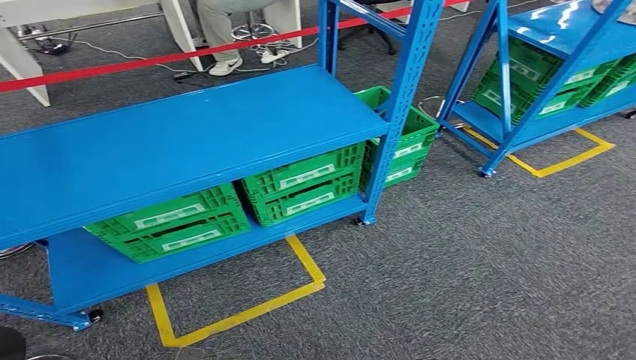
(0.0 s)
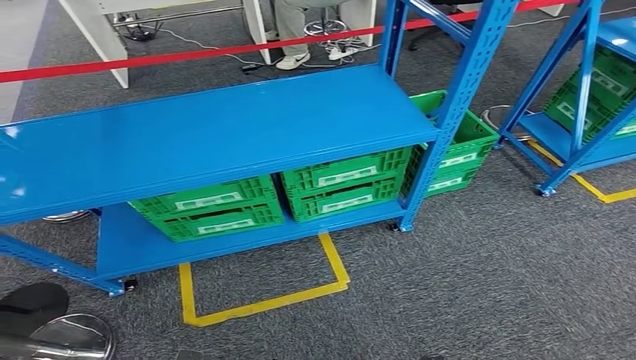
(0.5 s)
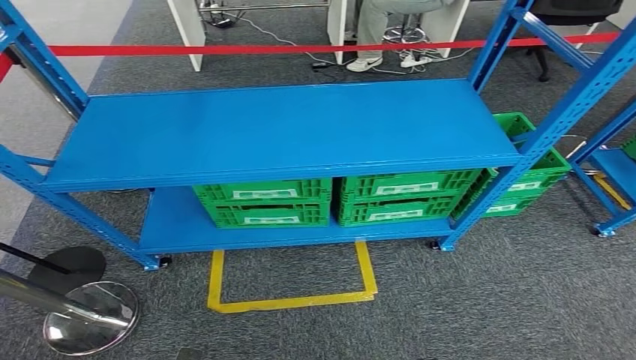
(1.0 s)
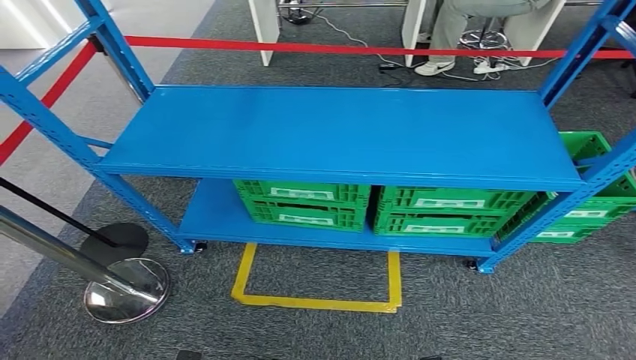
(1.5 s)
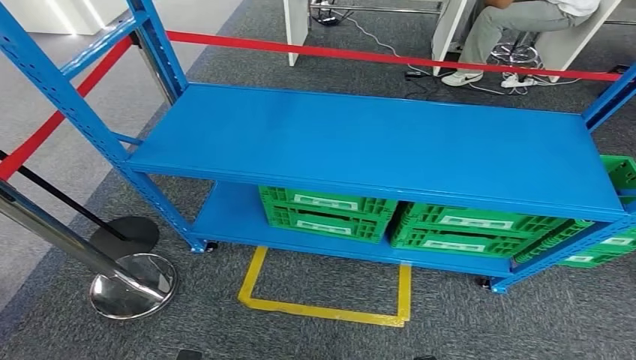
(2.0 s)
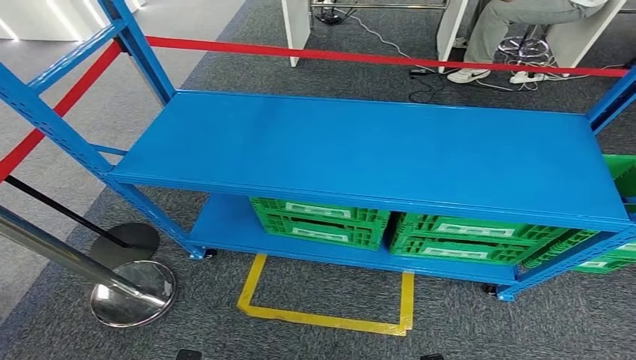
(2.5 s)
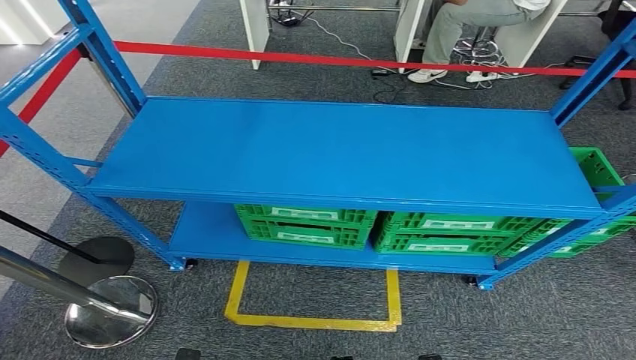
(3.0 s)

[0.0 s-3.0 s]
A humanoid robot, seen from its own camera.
Step, 0.0 to 3.0 s: Return to the initial position at the workbench.

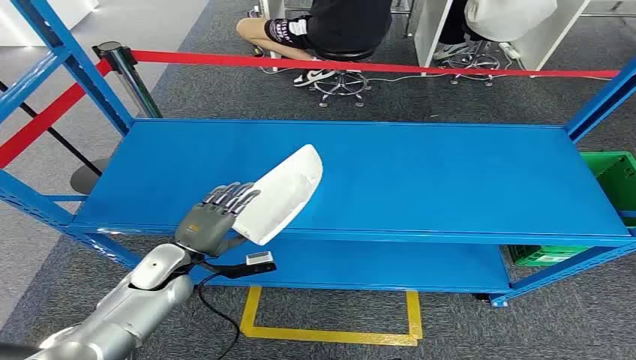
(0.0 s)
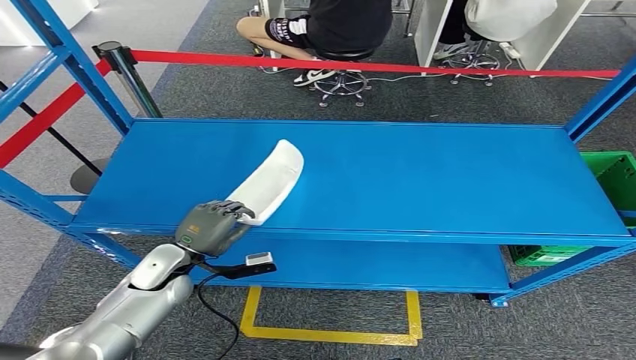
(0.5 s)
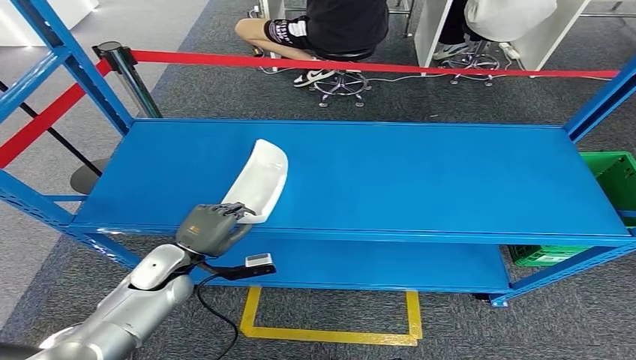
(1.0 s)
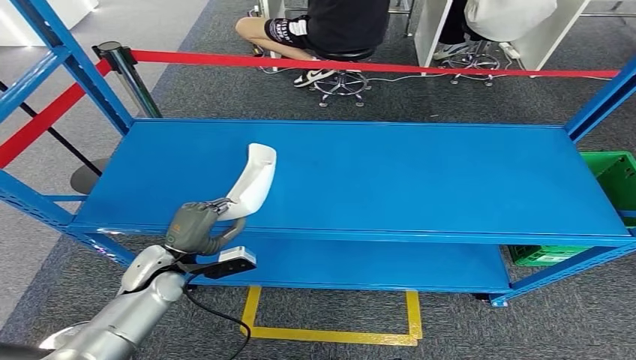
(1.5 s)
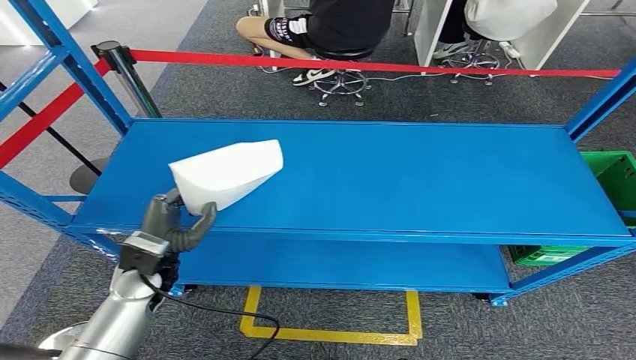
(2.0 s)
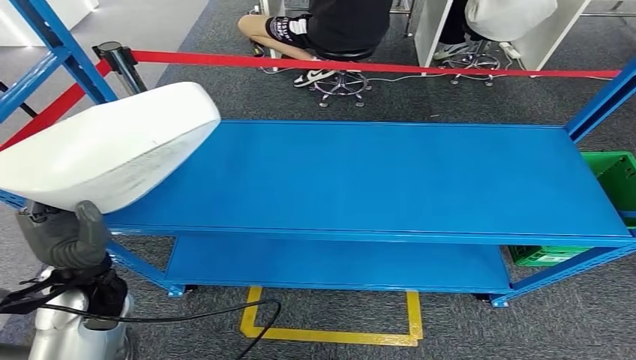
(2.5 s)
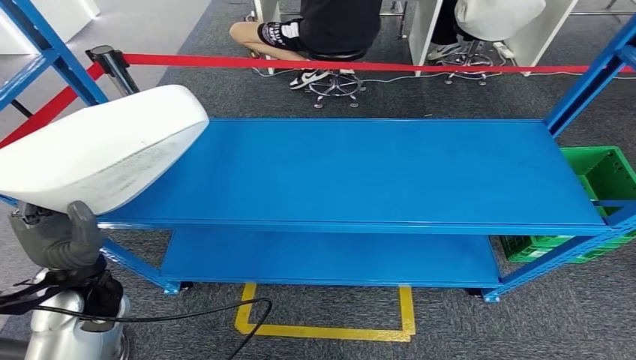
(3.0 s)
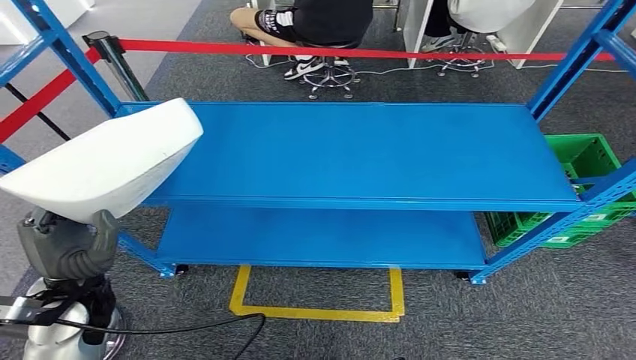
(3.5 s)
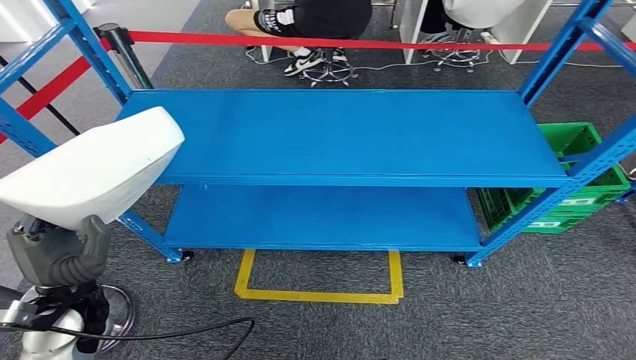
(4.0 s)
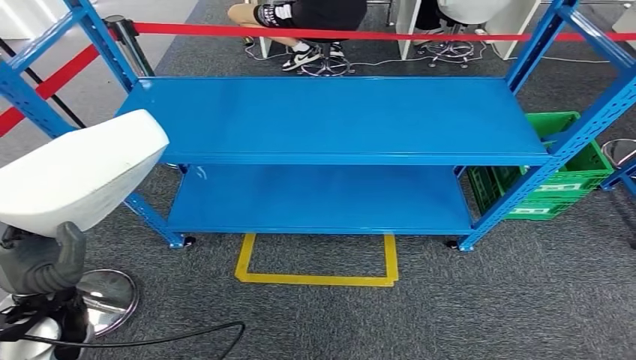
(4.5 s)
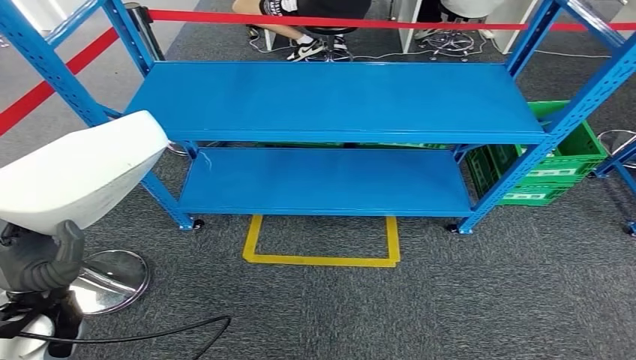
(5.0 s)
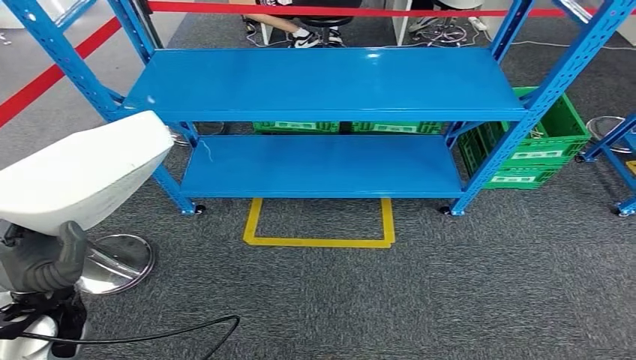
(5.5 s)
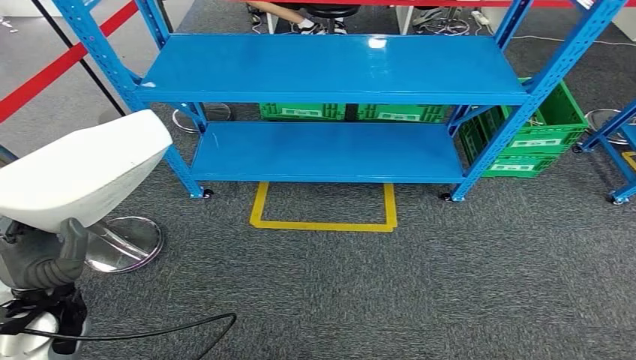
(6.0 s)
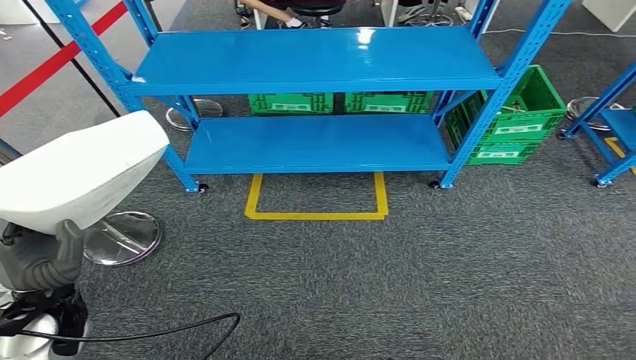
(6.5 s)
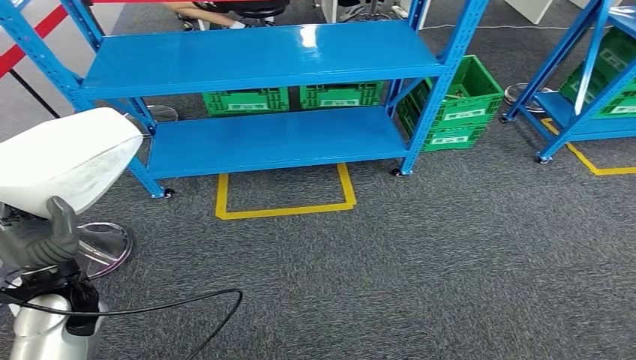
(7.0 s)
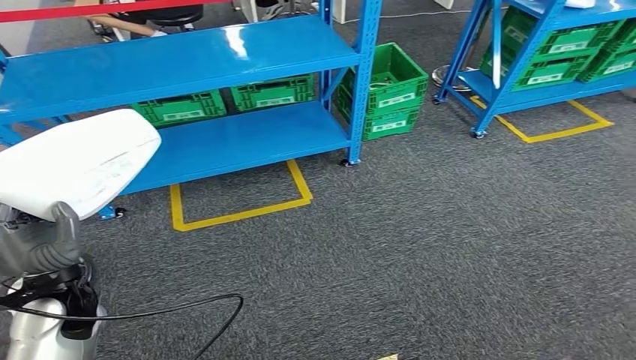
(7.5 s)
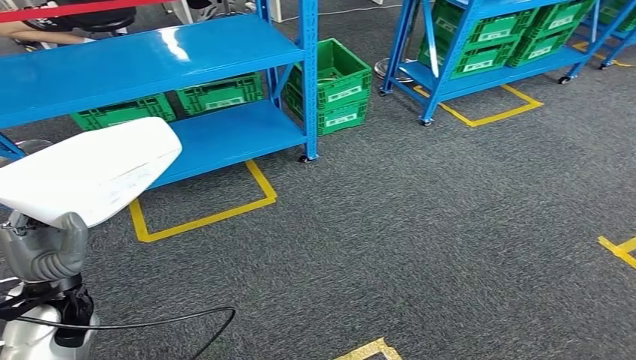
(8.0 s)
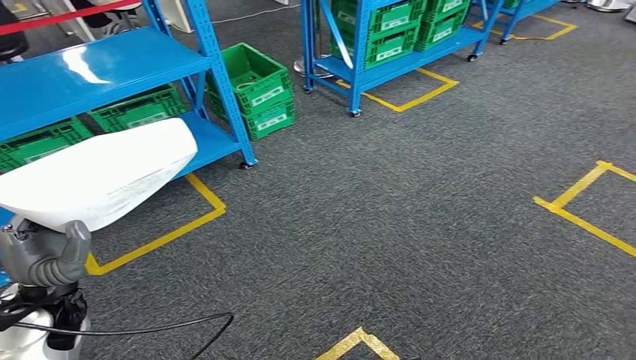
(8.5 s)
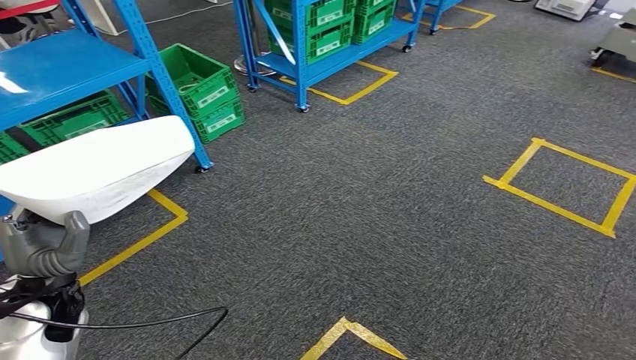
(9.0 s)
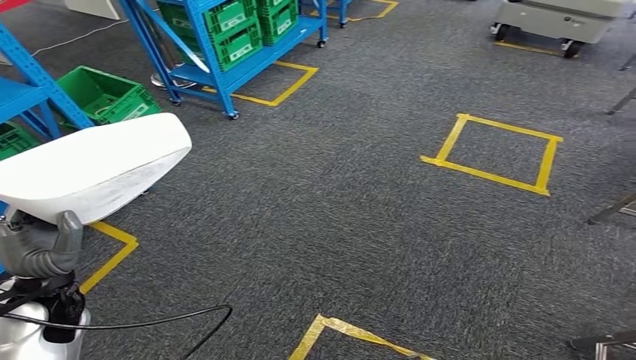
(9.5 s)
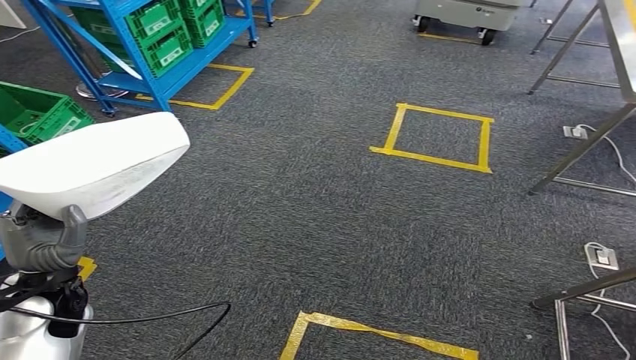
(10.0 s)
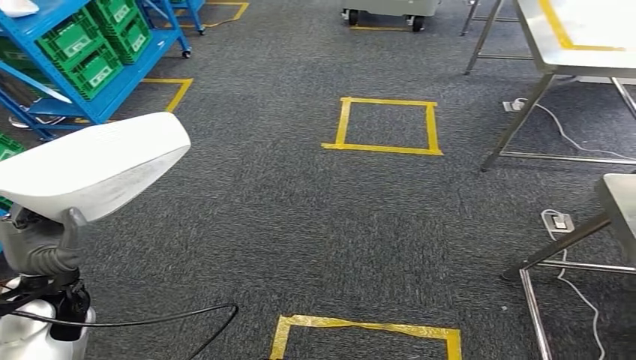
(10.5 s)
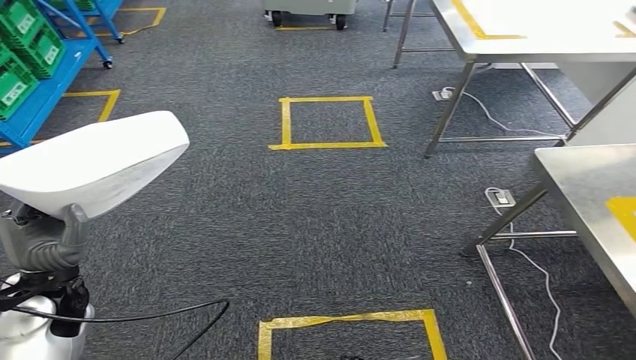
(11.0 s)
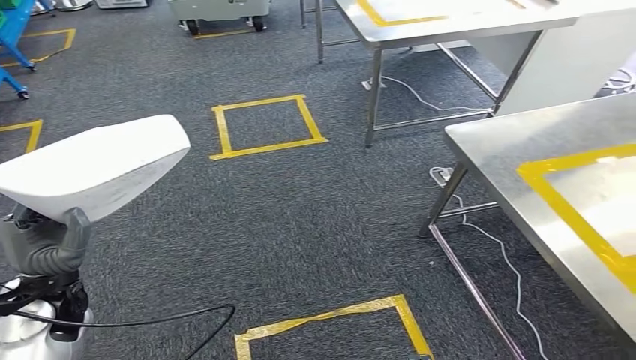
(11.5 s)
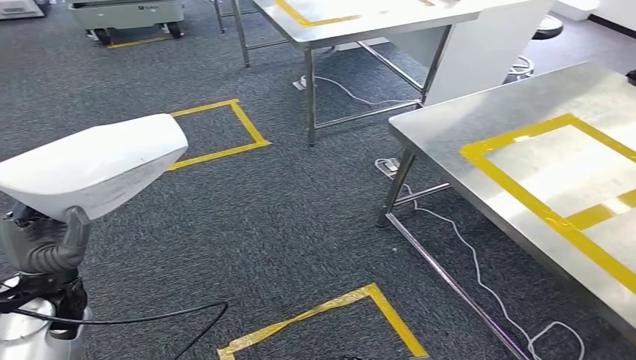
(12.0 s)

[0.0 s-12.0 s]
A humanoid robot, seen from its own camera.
Step, 0.0 to 3.0 s: Pick up the small component from the shelf.

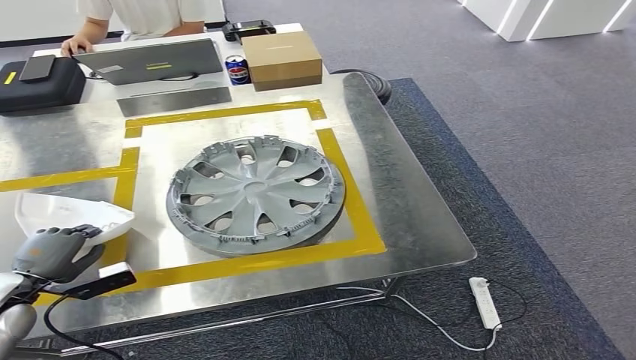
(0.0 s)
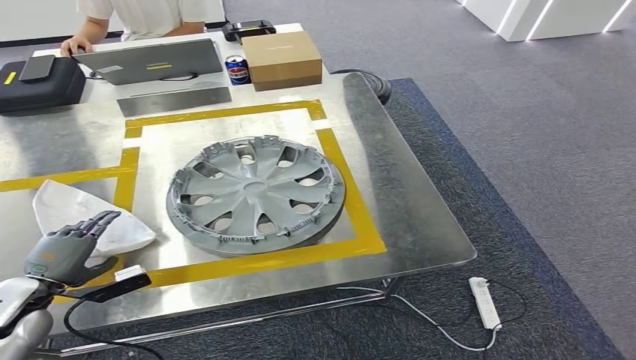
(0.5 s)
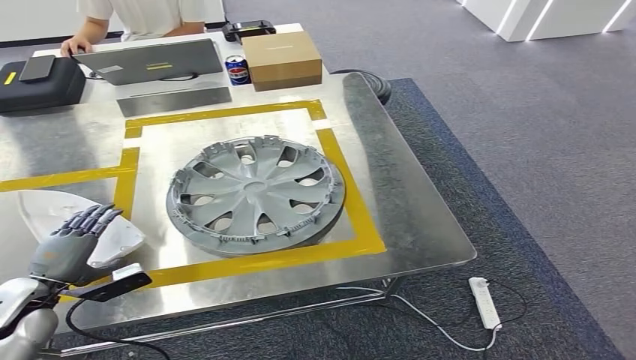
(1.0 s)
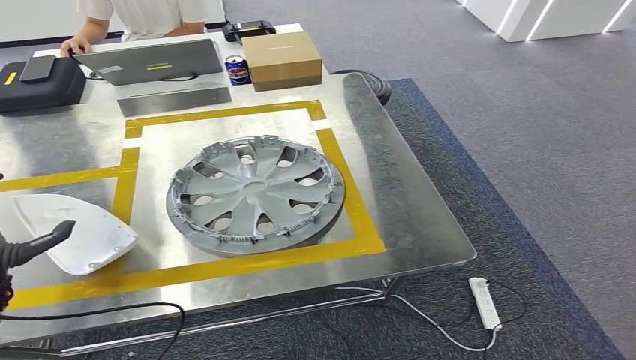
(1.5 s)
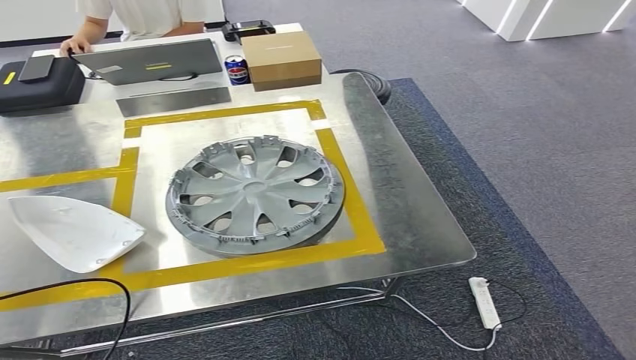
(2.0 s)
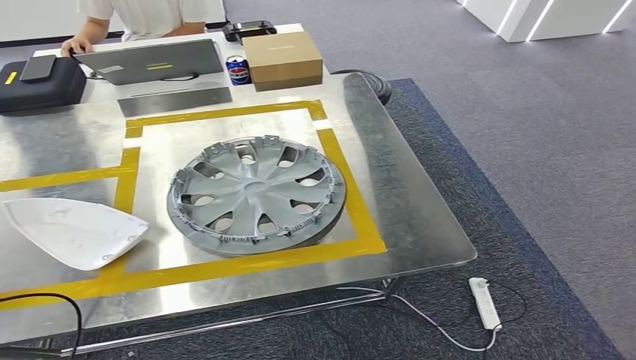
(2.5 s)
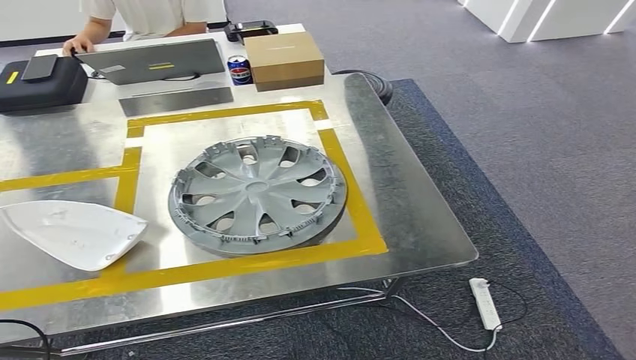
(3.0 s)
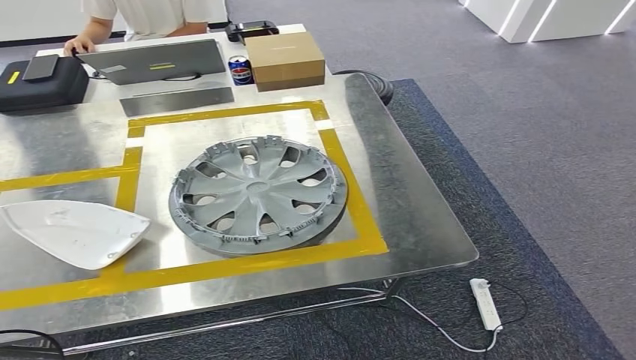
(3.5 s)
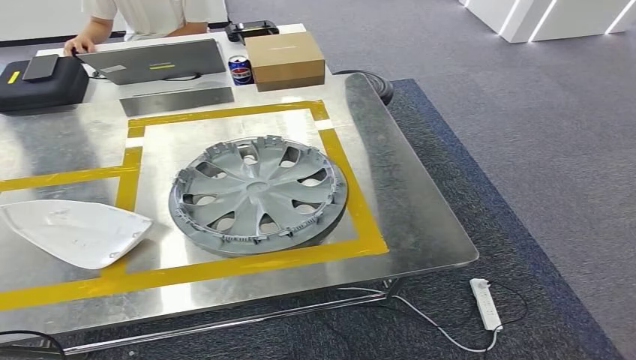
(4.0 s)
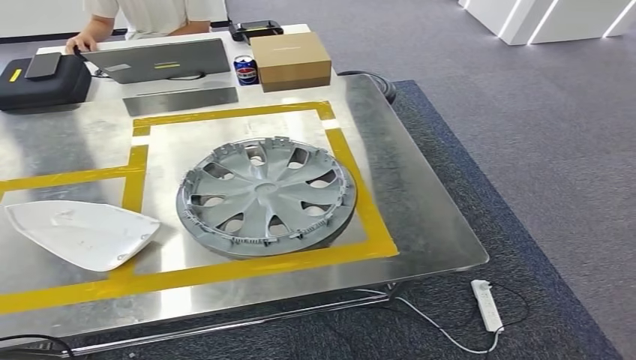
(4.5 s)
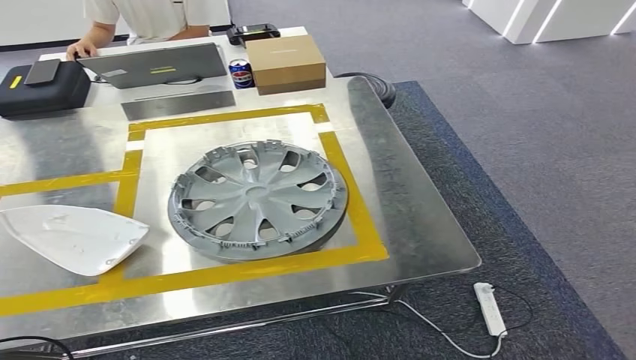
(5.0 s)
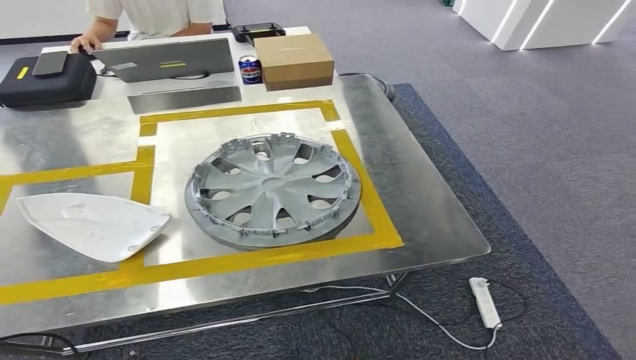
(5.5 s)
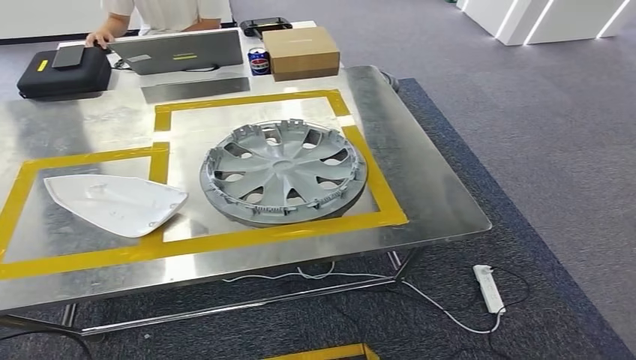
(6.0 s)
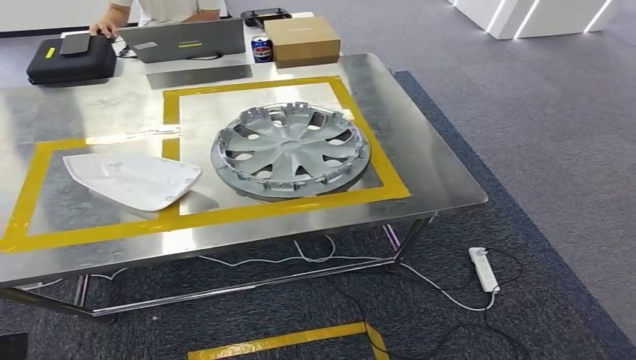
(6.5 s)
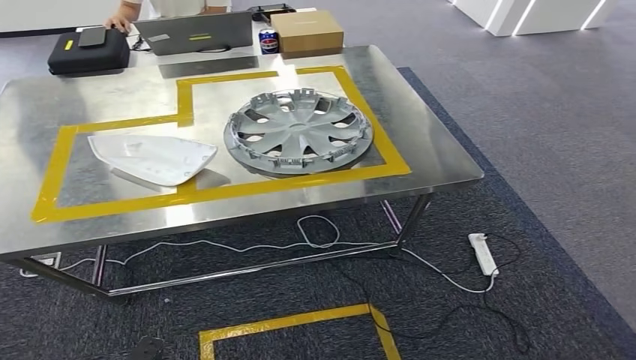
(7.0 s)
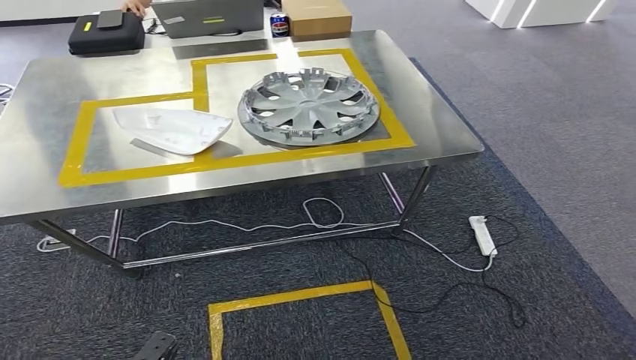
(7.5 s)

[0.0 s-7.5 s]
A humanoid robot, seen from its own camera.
Step, 0.0 to 2.0 s: Insert the small component into the corresponding slot on the workbench.
0.0 to 2.0 s: The left hand is displaced to the left and upward by about 10 cm.
2.0 to 4.0 s: The left hand shifts approximately 20 cm backward and downward.
4.0 to 5.5 s: The hands make only small movements.
